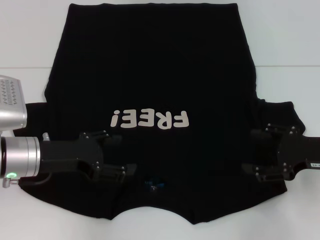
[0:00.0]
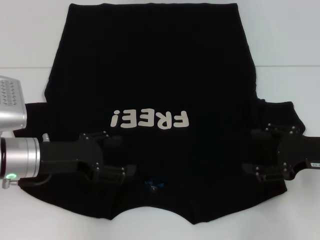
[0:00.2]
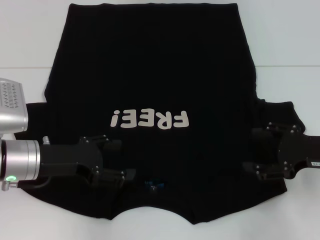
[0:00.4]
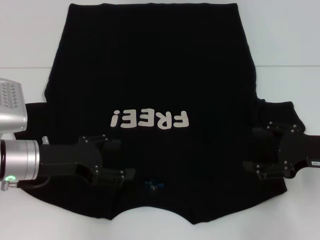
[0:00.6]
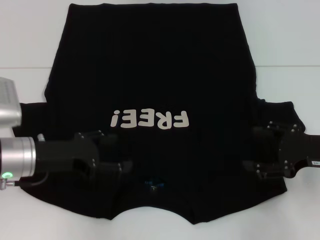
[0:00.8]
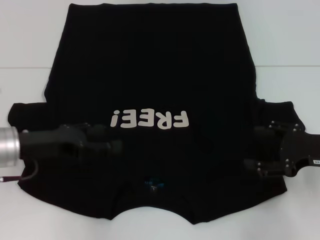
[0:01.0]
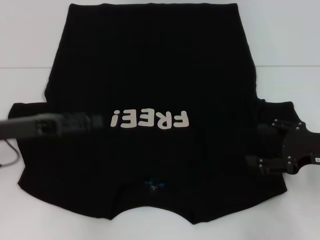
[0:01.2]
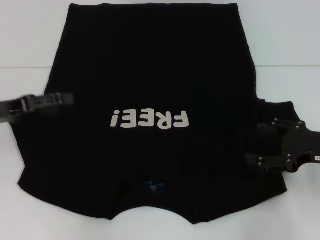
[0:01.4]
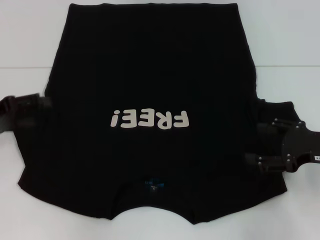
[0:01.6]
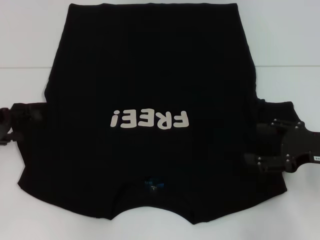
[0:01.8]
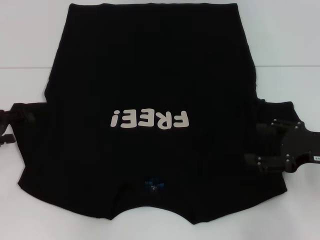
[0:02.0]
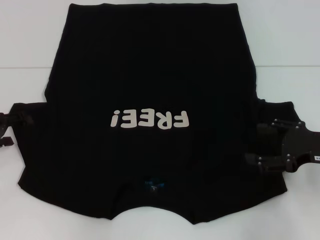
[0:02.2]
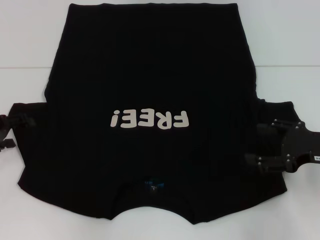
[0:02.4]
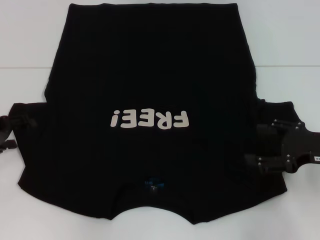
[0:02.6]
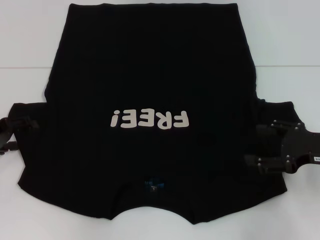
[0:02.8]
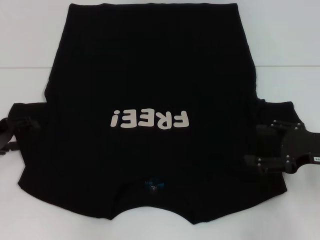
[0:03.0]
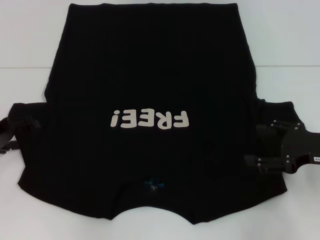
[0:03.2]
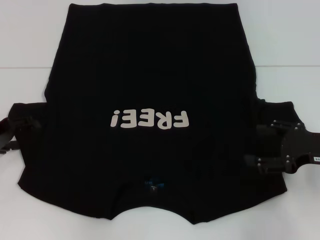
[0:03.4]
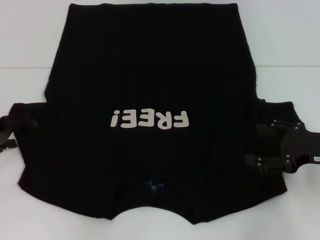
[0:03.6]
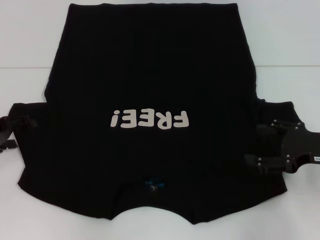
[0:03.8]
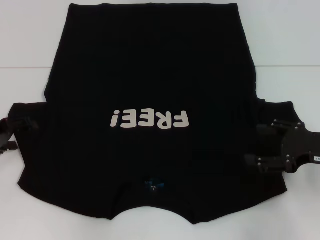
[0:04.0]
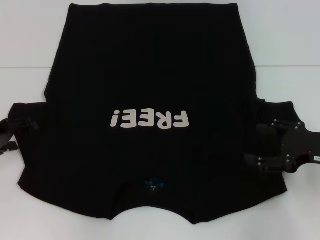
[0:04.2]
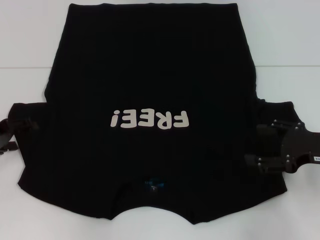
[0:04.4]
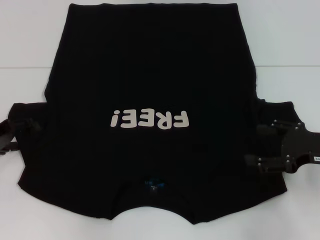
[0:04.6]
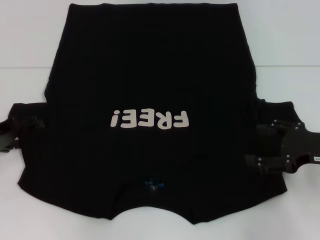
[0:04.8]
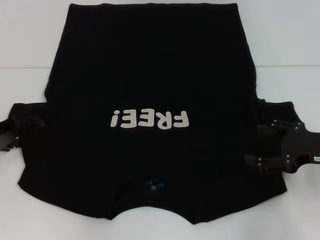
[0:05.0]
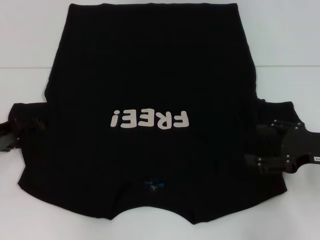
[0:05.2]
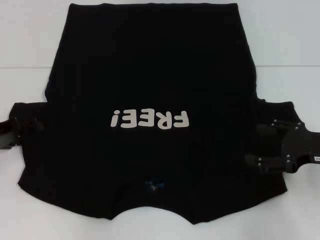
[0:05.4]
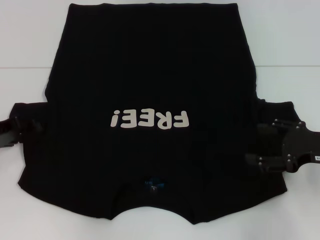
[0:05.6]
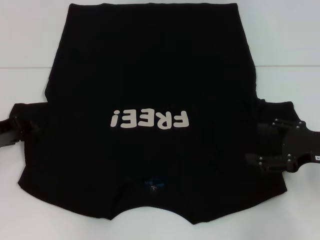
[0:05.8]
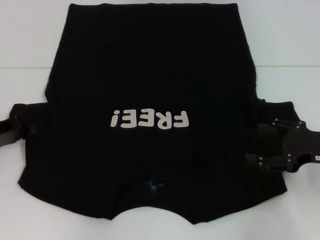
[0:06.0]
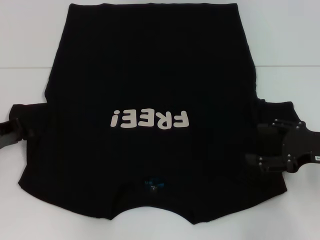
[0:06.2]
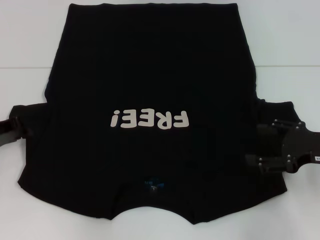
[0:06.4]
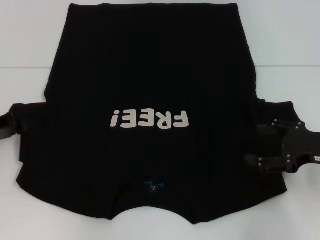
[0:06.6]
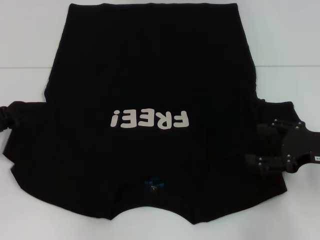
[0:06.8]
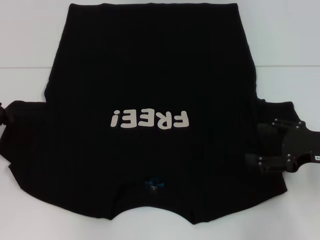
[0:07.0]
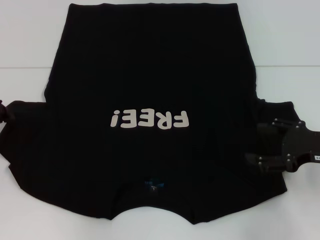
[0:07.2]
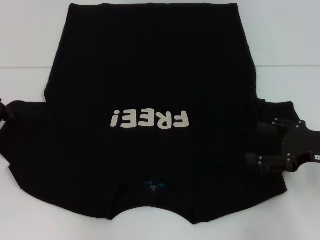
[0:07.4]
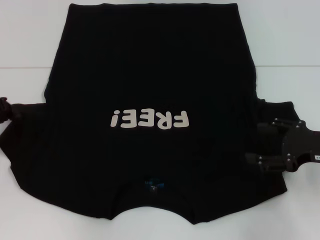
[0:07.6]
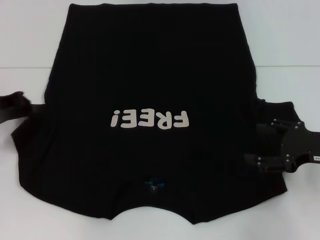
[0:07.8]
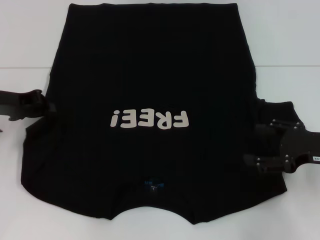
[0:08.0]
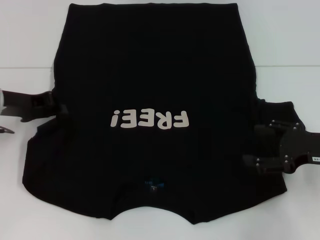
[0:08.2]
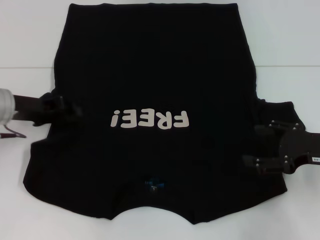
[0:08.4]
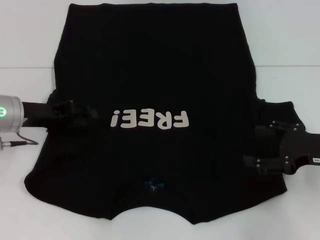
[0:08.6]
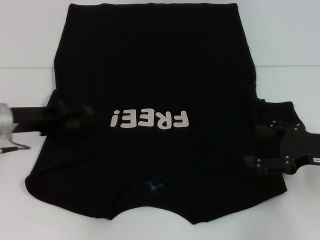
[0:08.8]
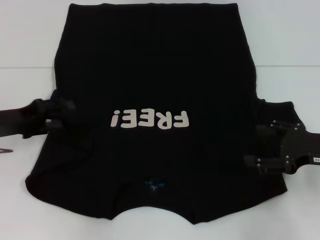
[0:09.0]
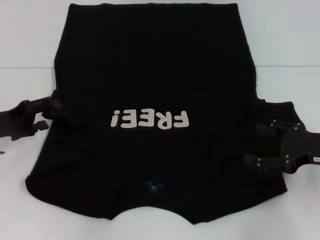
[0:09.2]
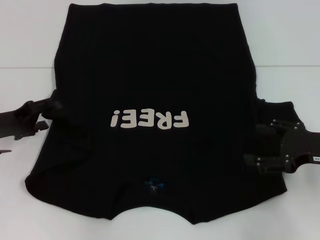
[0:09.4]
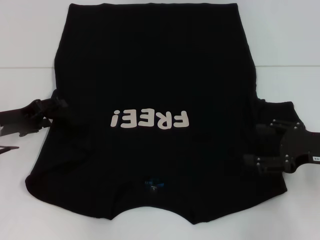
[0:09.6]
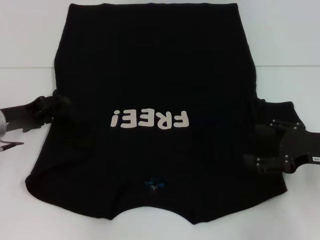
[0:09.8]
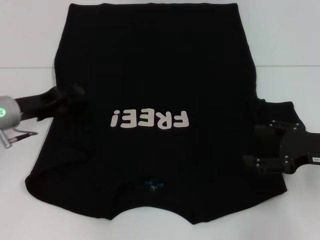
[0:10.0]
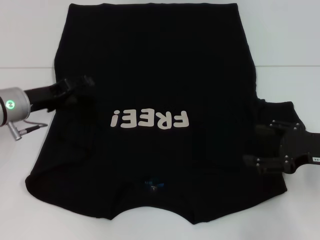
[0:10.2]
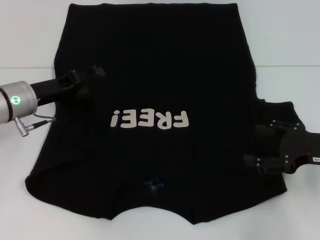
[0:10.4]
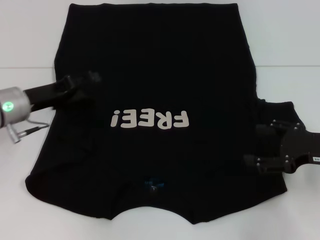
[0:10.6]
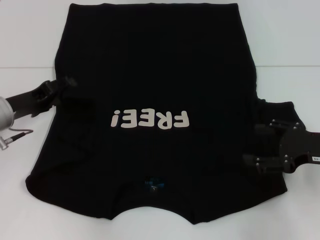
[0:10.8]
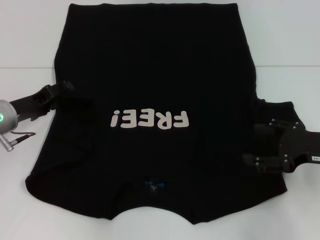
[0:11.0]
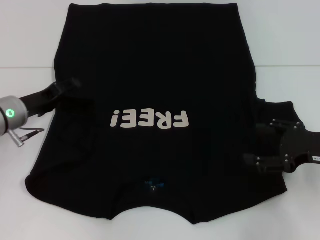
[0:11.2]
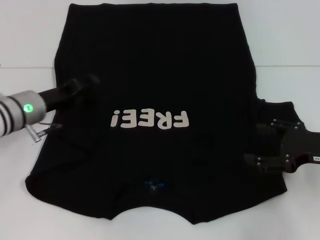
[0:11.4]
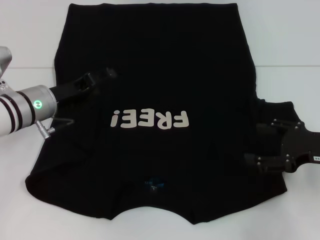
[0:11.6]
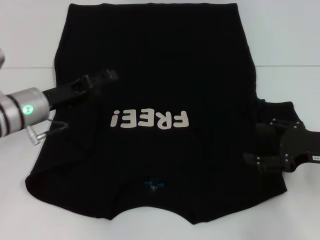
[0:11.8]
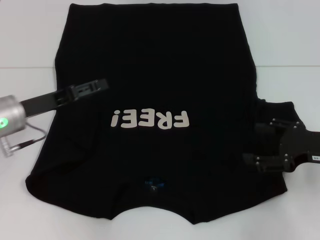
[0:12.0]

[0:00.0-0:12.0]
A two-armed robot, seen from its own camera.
Step, 0:00.0 to 0:11.6: Fold the bottom left sleeve with your left hand.
0:00.0 to 0:01.6: The left gripper goes roughly 10 cm to the left.
0:01.6 to 0:03.0: There are only small adjustments of the grippers.
0:03.0 to 0:04.4: Neither gripper changes place.
0:04.4 to 0:06.0: The left gripper closes.
0:06.0 to 0:07.6: The left gripper closes its fingers.
0:07.6 to 0:09.0: The left gripper opens.
0:09.0 to 0:10.4: The left gripper goes approximately 5 cm to the right.
0:10.4 to 0:12.0: The grippers move only a little.

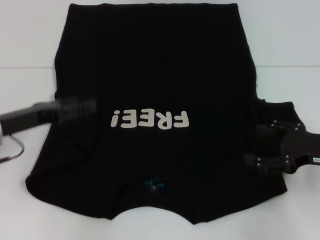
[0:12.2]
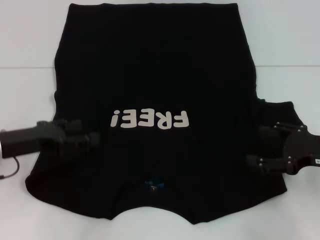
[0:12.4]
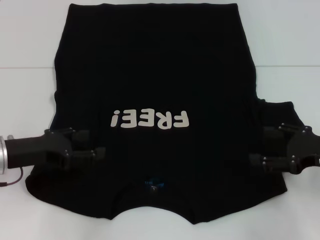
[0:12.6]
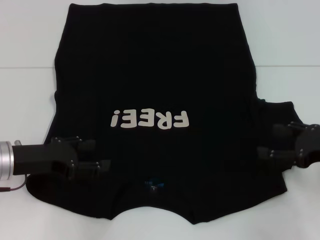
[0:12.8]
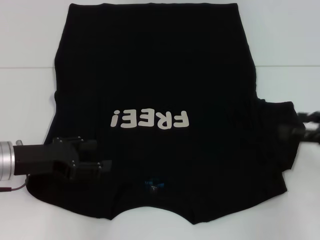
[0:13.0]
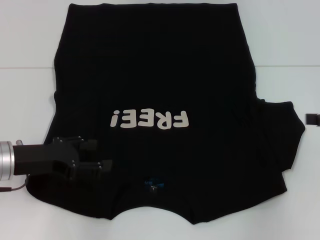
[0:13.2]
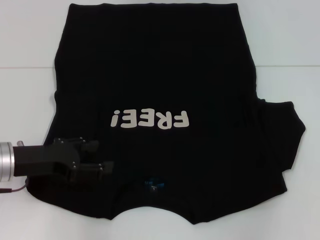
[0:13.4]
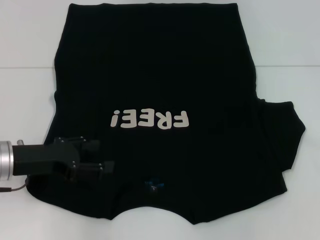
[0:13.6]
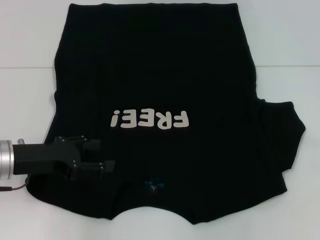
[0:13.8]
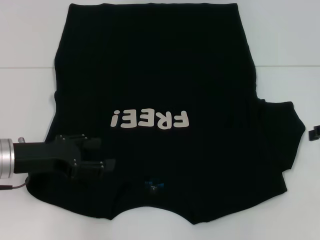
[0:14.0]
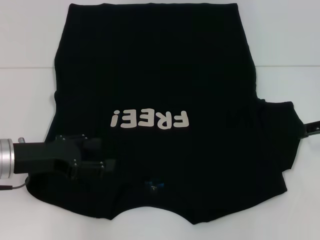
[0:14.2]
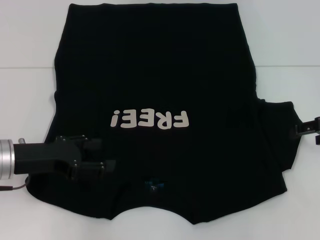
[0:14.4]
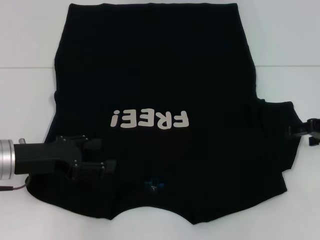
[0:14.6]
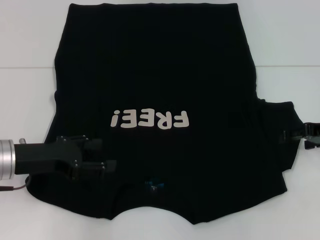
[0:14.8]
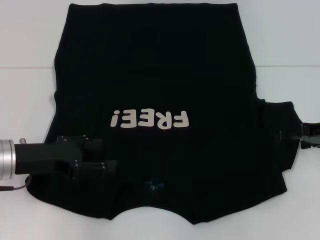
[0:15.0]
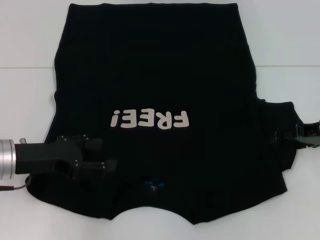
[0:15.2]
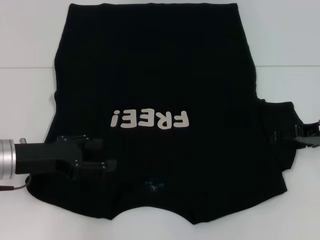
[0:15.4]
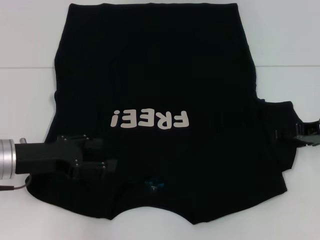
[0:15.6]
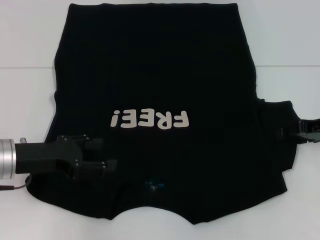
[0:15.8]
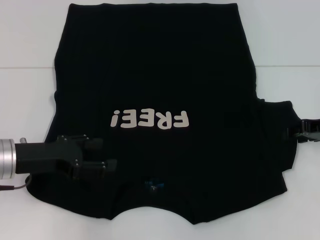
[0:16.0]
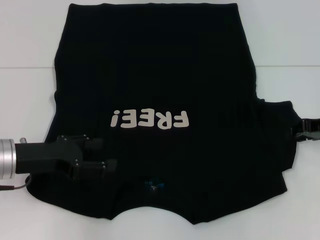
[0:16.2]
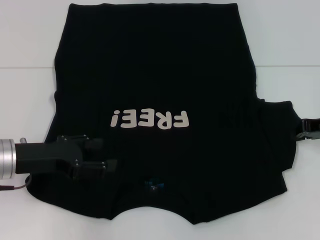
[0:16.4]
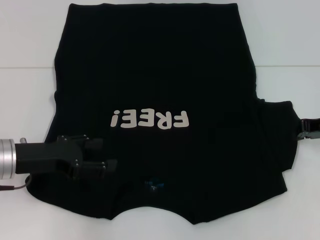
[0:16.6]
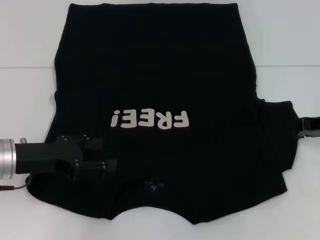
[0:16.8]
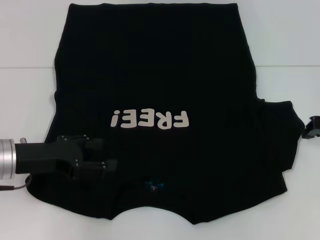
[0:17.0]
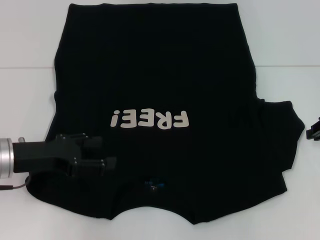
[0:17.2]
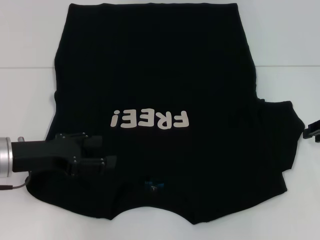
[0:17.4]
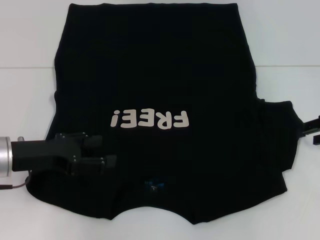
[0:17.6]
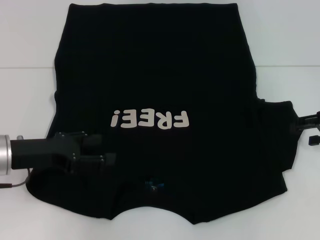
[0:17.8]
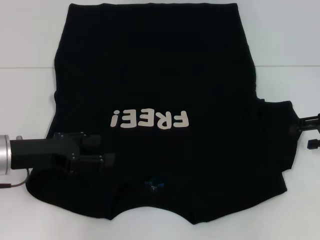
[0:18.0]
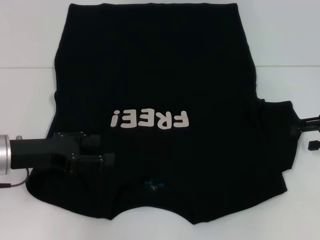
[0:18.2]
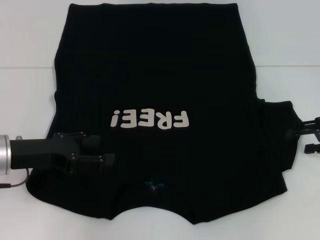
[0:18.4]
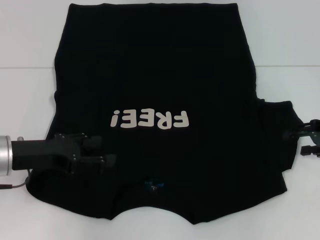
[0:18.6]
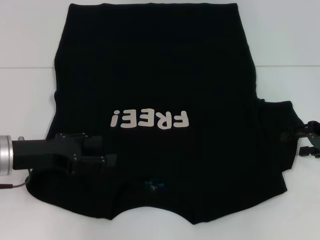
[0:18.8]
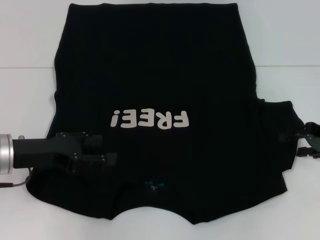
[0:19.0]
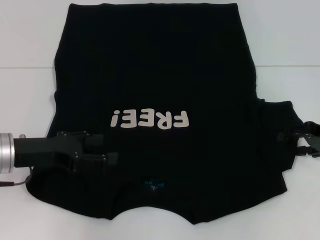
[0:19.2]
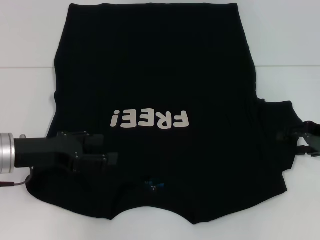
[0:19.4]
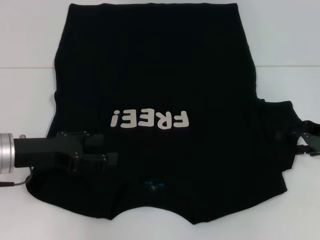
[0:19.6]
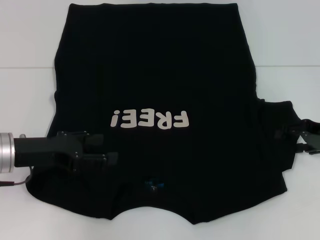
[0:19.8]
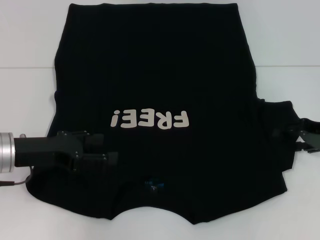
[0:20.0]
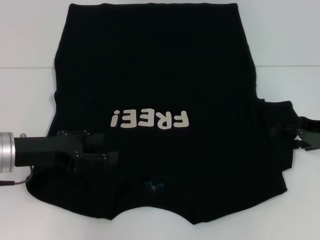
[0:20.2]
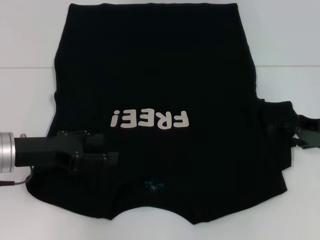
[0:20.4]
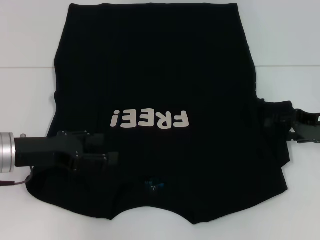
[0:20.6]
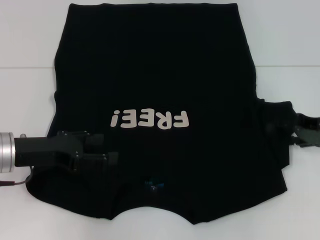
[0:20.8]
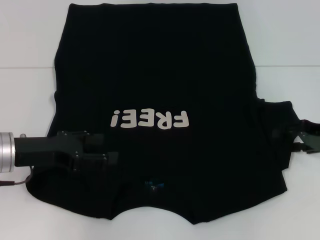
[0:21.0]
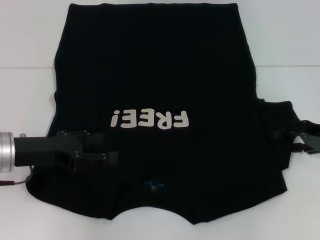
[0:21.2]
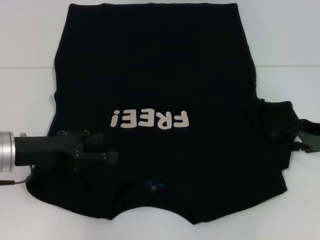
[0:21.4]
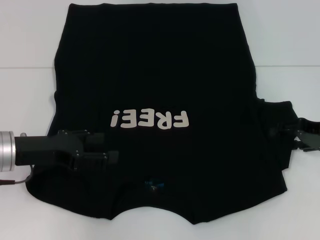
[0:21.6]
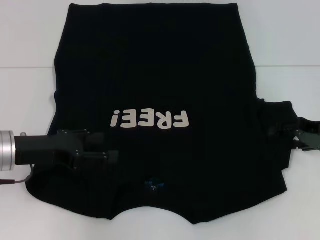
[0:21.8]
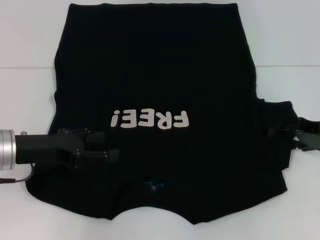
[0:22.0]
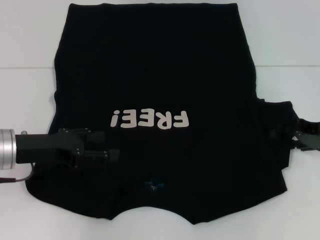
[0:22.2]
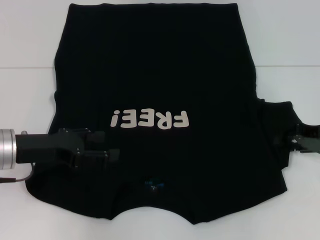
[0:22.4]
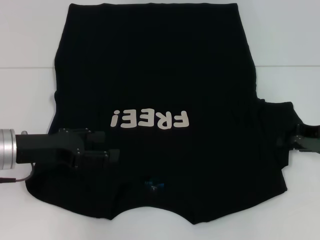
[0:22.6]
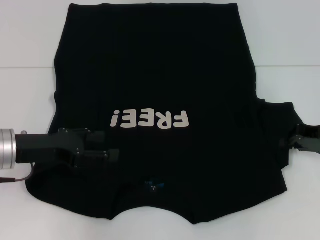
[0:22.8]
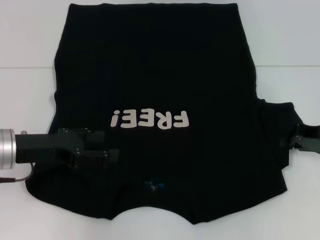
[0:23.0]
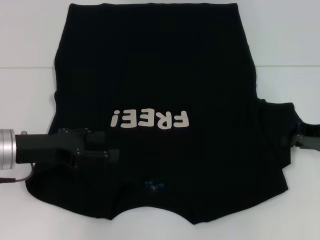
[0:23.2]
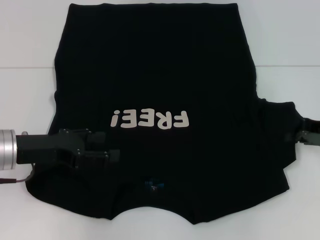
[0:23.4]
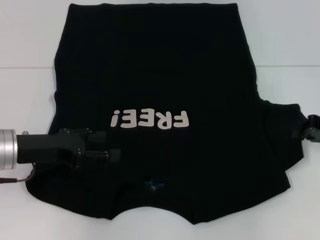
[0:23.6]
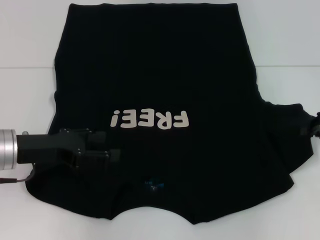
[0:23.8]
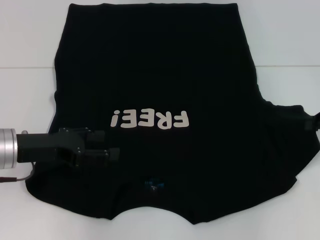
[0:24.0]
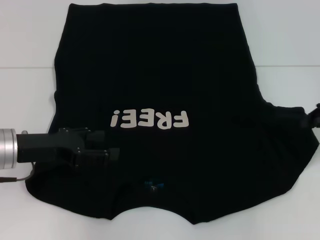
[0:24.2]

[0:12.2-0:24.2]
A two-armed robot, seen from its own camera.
0:12.2 to 0:13.8: The right gripper travels upward and to the right by some 10 cm.
0:13.8 to 0:15.2: The right gripper heads downward and to the left, covering roughly 10 cm.
0:15.2 to 0:16.6: The right gripper closes up.
0:18.2 to 0:19.8: There are only small adjustments of the grippers.
0:21.2 to 0:22.6: The right gripper closes its fingers.
0:22.6 to 0:24.2: The right gripper ends up some 5 cm from where it was.
